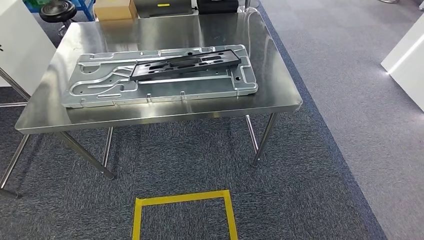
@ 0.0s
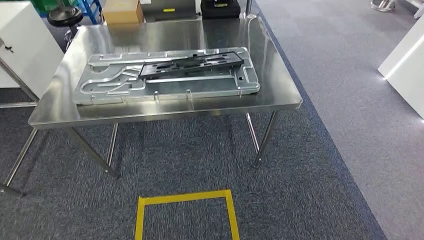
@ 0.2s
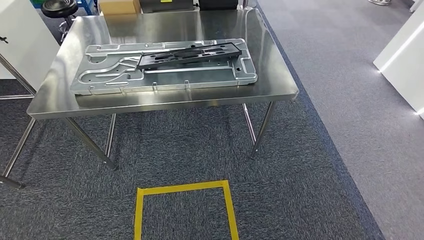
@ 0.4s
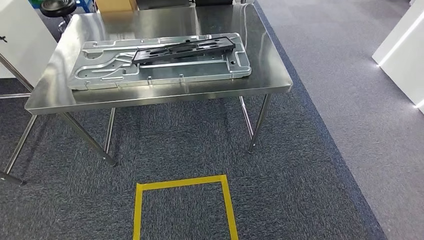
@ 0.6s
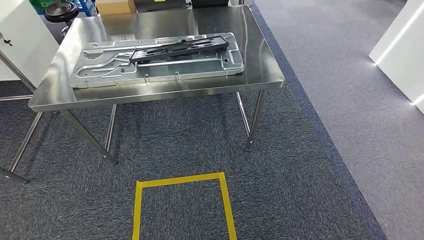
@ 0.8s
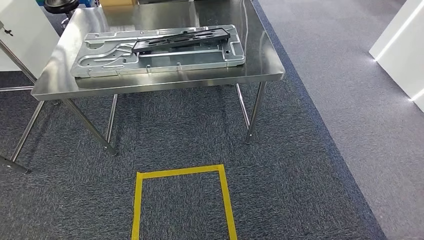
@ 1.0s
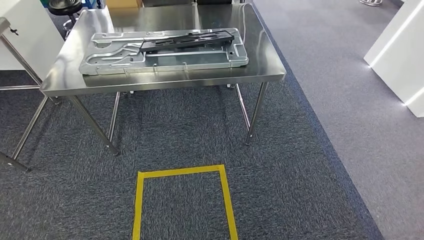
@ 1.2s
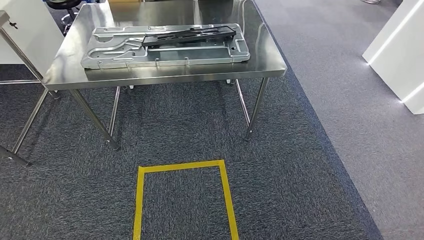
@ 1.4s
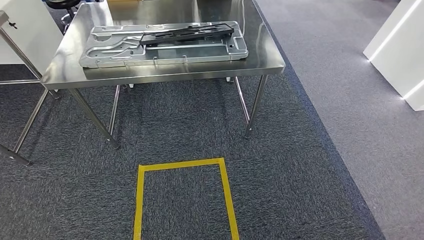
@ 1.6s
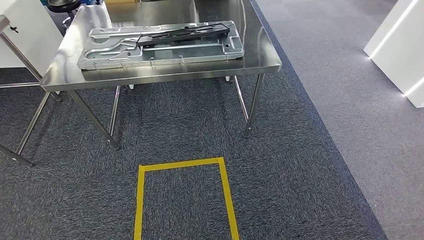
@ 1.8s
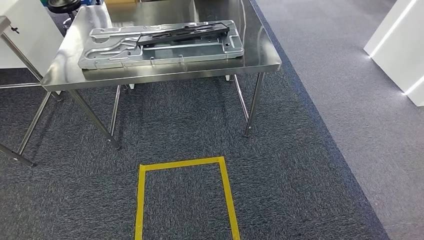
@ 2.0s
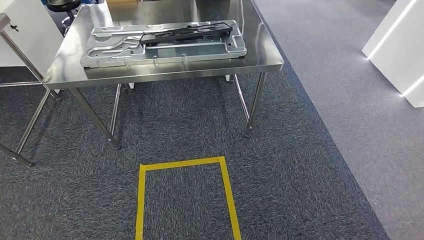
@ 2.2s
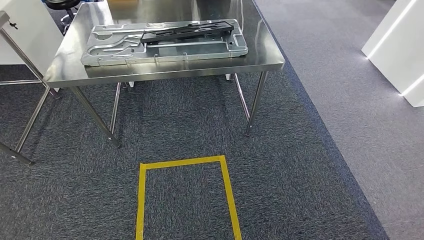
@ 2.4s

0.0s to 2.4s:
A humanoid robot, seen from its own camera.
Step, 0.6s to 2.4s: Return to the initial position at the shelf.
1.2s to 2.4s: Neither hand changes place.
